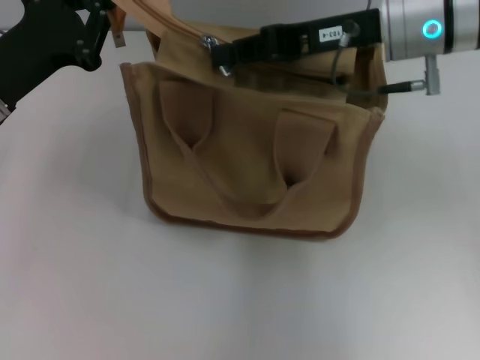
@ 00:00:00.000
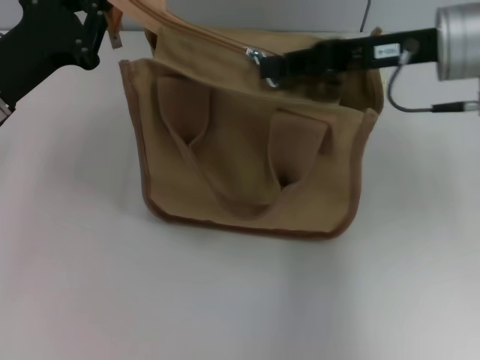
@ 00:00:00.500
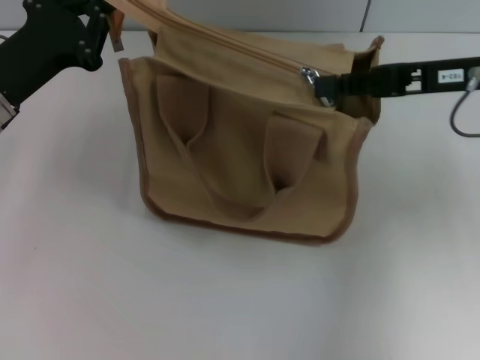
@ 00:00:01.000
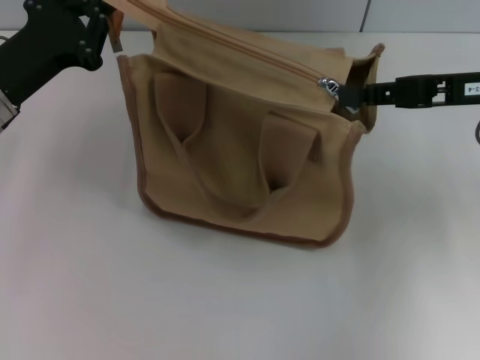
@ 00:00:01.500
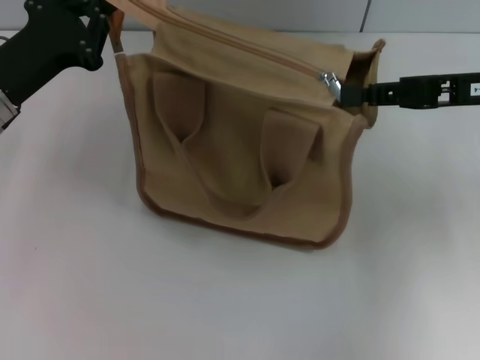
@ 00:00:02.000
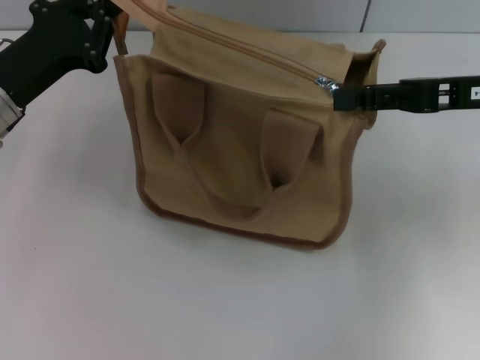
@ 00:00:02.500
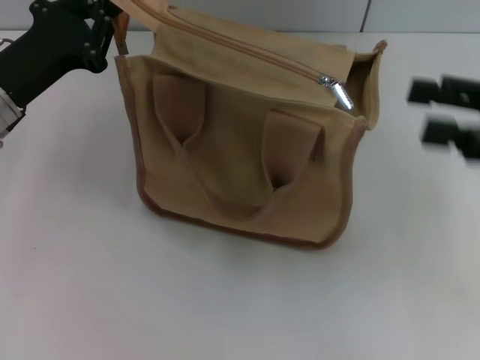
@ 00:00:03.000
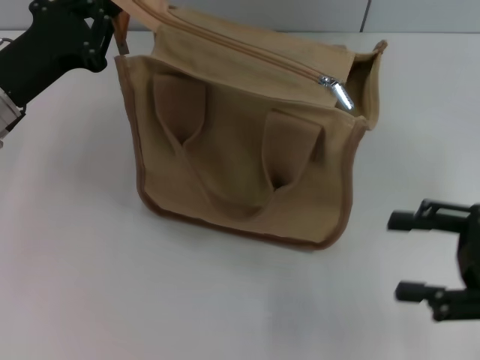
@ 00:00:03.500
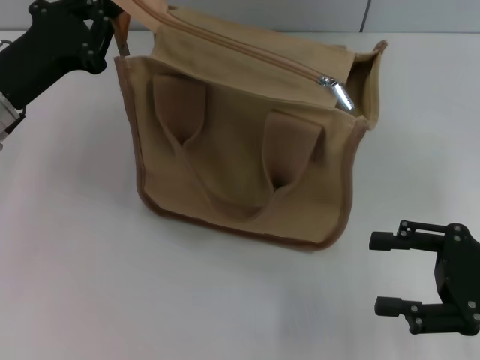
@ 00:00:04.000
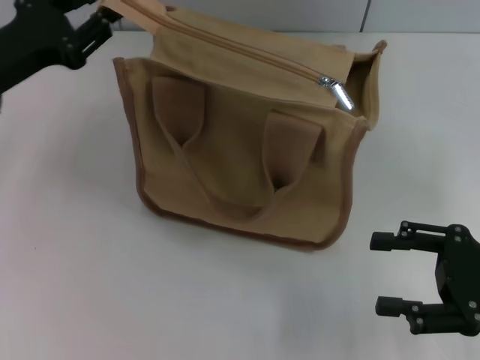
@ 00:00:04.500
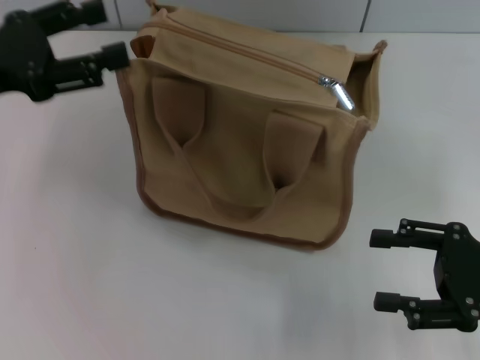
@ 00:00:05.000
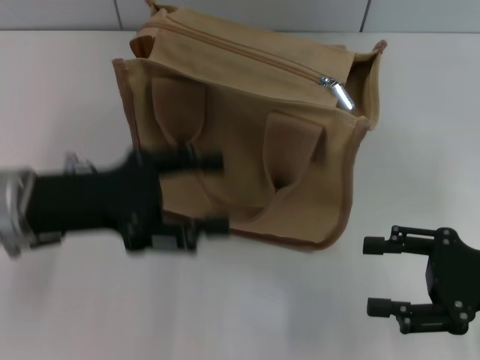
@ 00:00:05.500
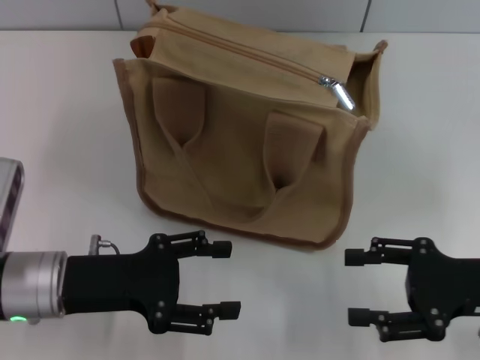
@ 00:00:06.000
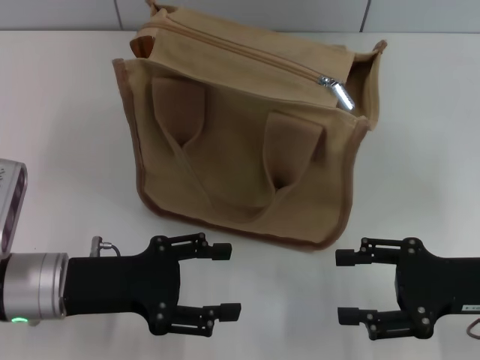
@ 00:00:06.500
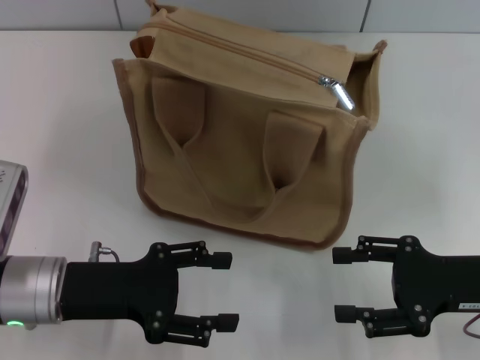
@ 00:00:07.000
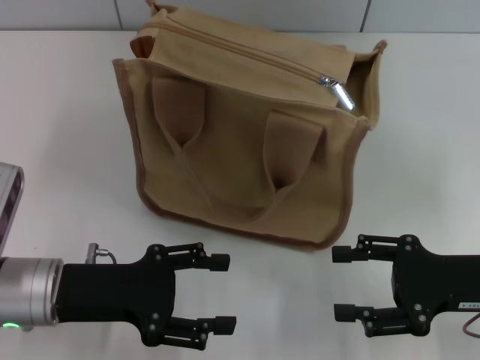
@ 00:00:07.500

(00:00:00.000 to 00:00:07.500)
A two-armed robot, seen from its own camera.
Step, 00:00:00.000 - 00:00:02.500: Pull up the zipper with your right hand.
Step, 00:00:03.500 - 00:00:05.000: Grab the zipper with your left hand.
00:00:00.000 - 00:00:02.000: The right gripper travels to the right by approximately 10 cm.
00:00:02.000 - 00:00:04.000: The right gripper goes roughly 15 cm backward and downward, and opens its fingers.
00:00:04.000 - 00:00:05.500: The left gripper heads backward, covering some 5 cm, and opens up.
00:00:05.500 - 00:00:07.500: The left gripper heads downward, covering about 5 cm.

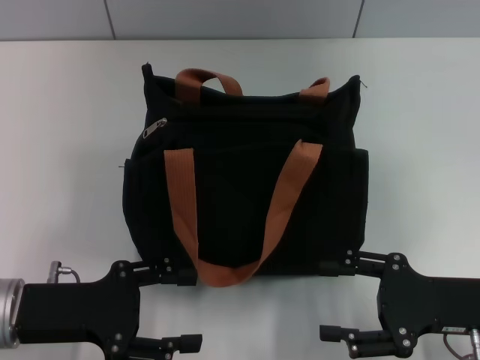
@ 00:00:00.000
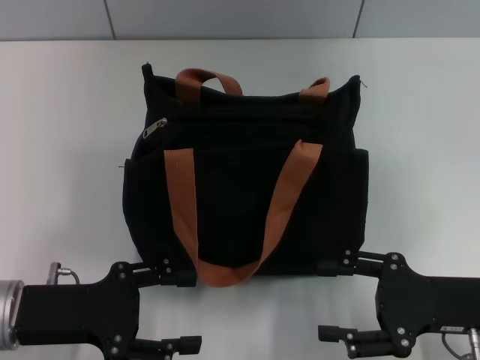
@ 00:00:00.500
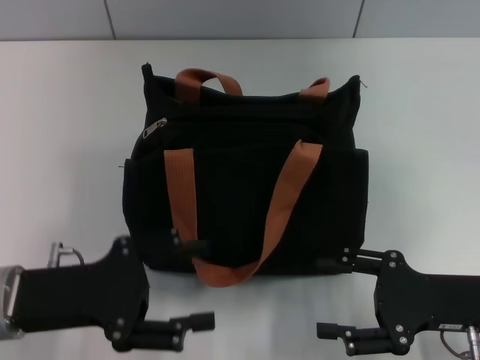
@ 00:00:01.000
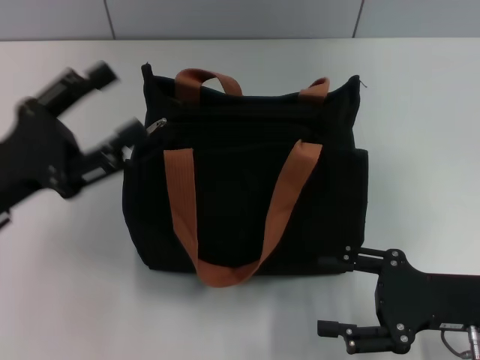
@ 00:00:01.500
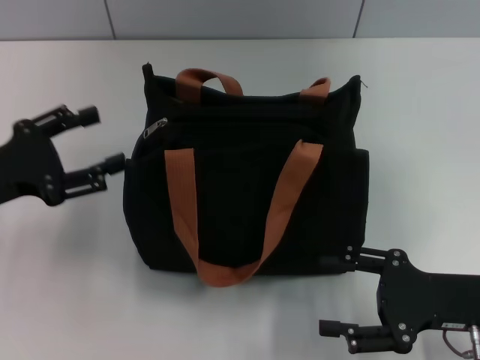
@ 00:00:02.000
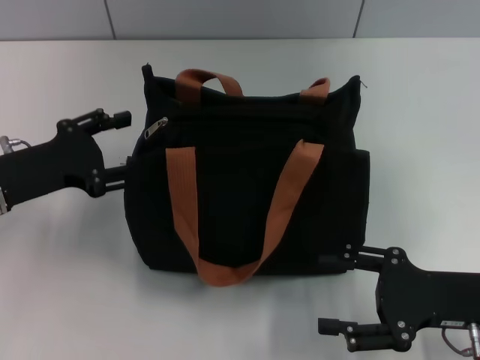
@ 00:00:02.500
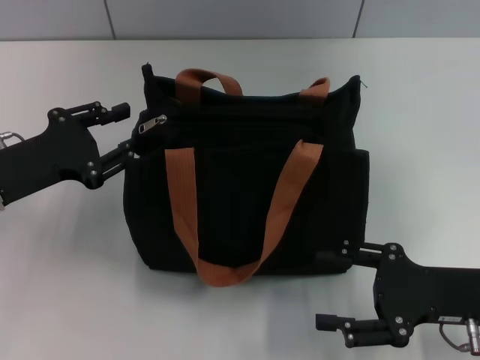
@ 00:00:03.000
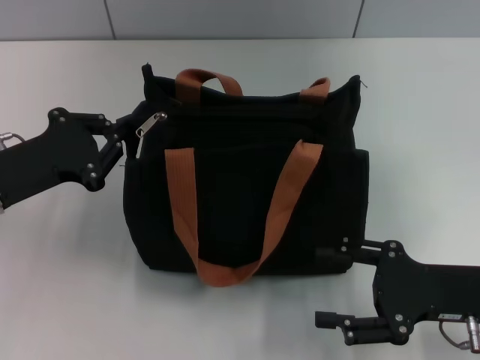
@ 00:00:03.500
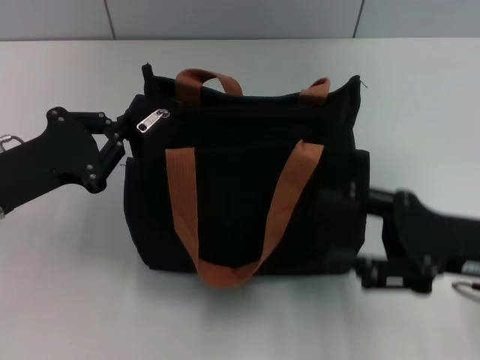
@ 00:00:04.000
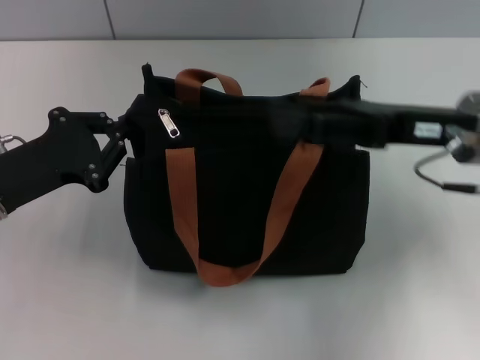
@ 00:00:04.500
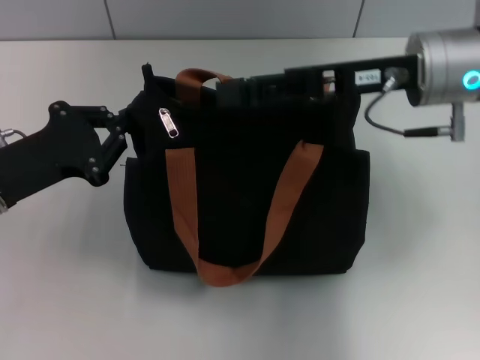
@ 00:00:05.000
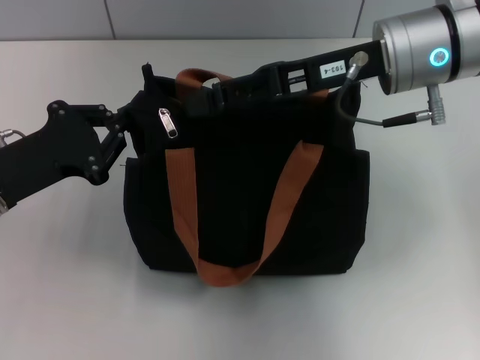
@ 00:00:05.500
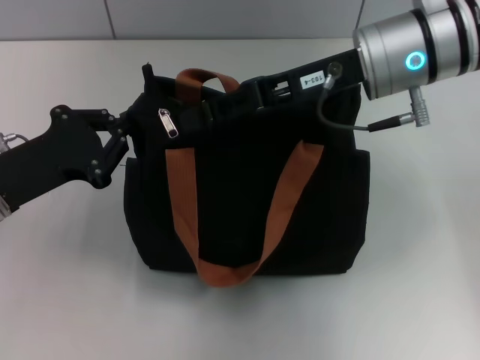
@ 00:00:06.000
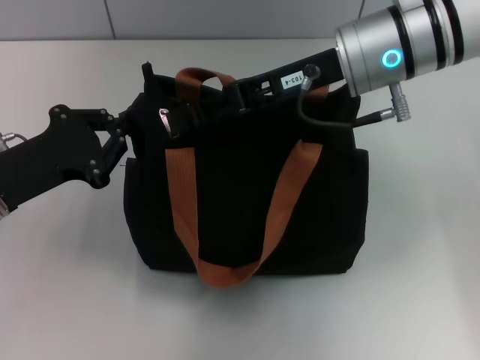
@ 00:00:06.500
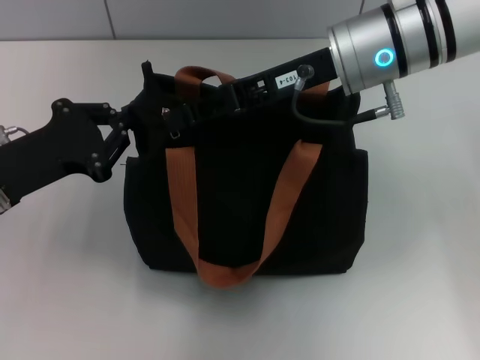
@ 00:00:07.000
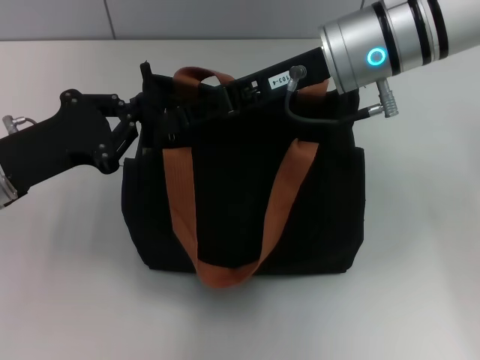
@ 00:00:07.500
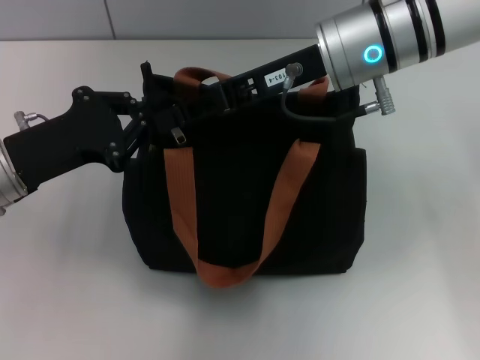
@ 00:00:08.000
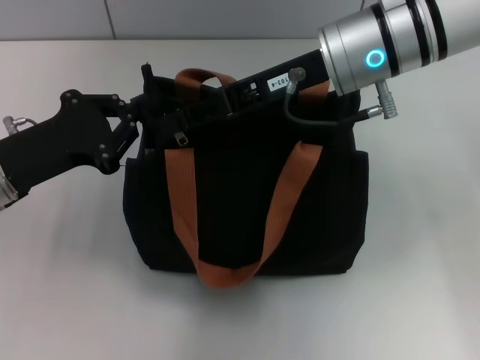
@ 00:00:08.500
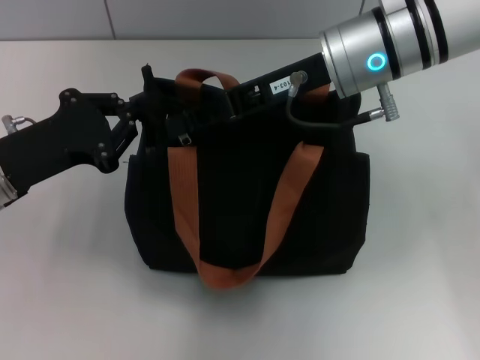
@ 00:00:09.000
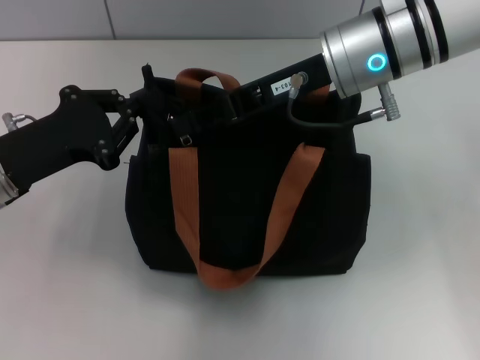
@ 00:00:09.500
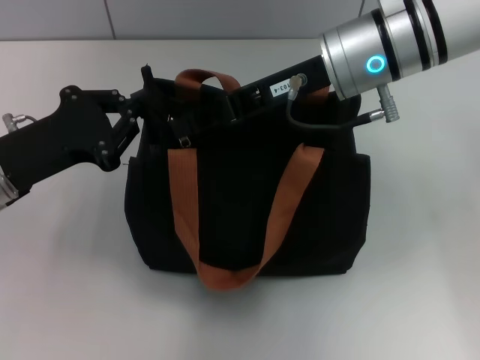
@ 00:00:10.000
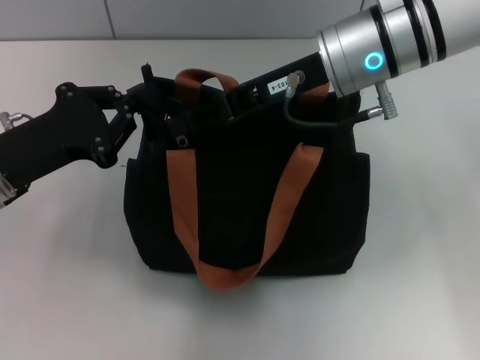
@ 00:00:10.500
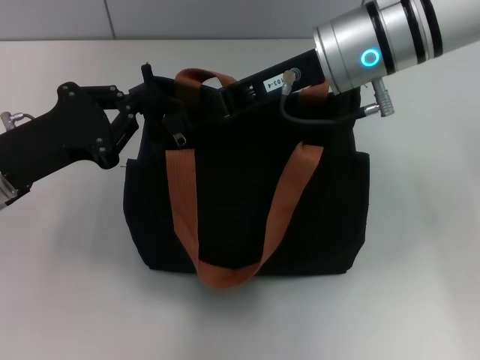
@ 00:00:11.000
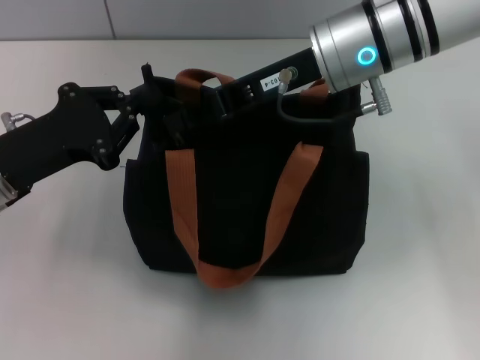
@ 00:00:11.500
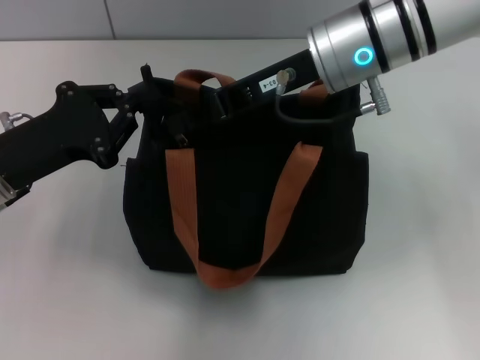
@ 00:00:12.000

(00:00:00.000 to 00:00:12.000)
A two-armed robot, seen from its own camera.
00:00:00.000 - 00:00:02.000: The left gripper shifts roughly 10 cm to the left and forward.
00:00:02.000 - 00:00:04.000: The left gripper closes up, while the right gripper ends up about 5 cm from where it was.
00:00:04.000 - 00:00:06.000: The right gripper goes about 20 cm forward, to the left and upward, and closes its fingers.
00:00:06.000 - 00:00:08.000: The grippers make only small movements.
00:00:08.000 - 00:00:10.000: Neither gripper changes place.
00:00:10.000 - 00:00:12.000: Neither gripper changes place.

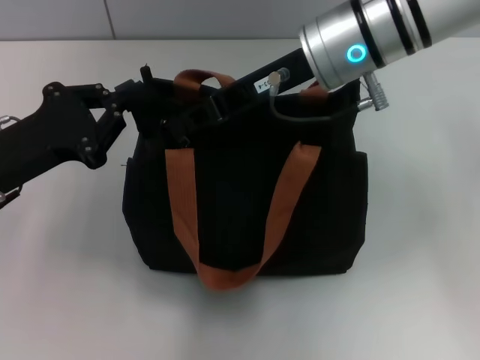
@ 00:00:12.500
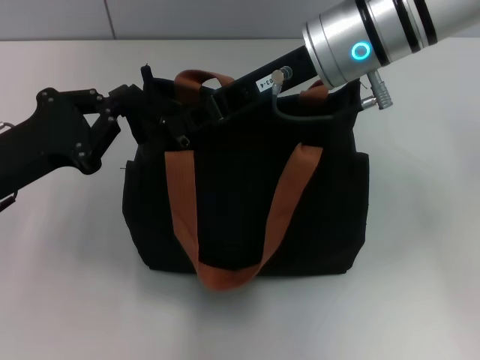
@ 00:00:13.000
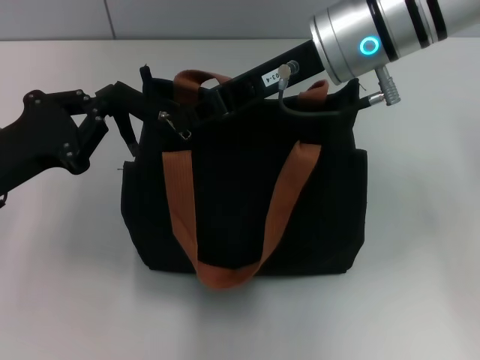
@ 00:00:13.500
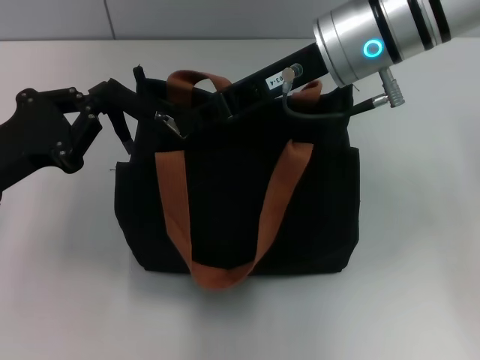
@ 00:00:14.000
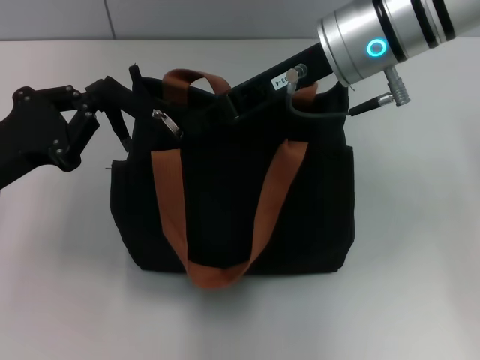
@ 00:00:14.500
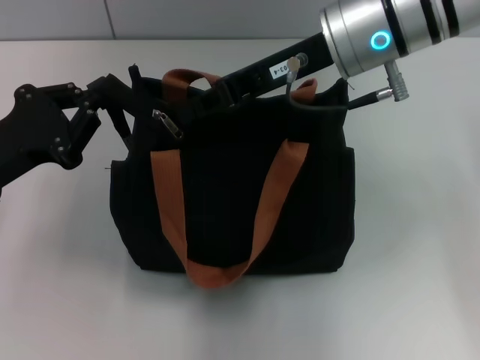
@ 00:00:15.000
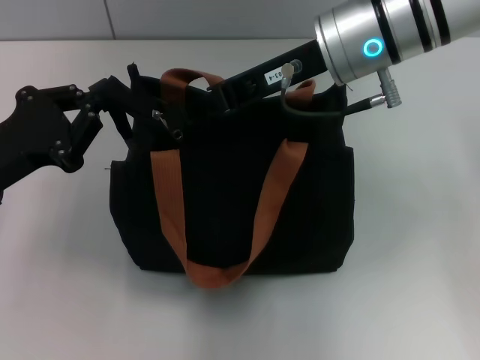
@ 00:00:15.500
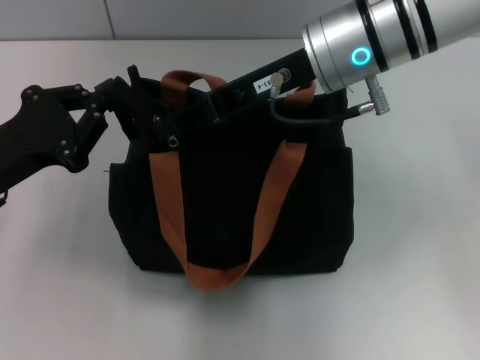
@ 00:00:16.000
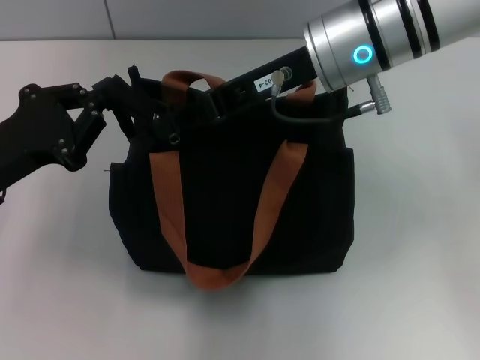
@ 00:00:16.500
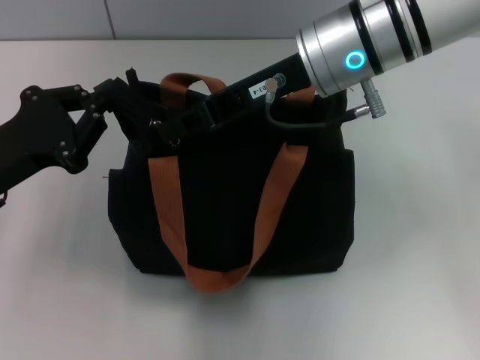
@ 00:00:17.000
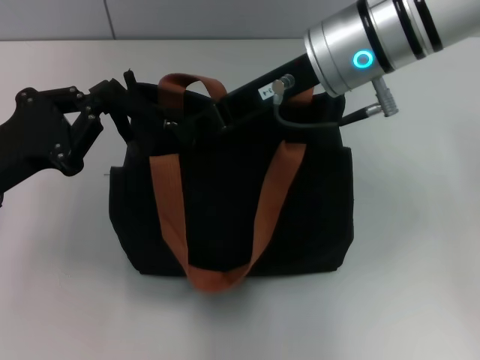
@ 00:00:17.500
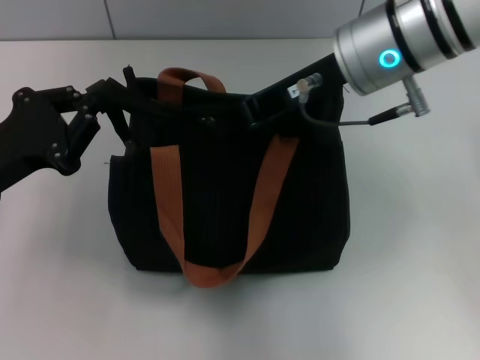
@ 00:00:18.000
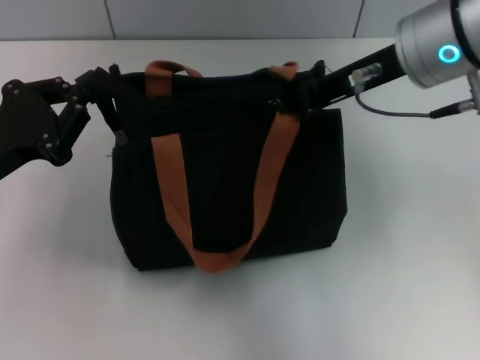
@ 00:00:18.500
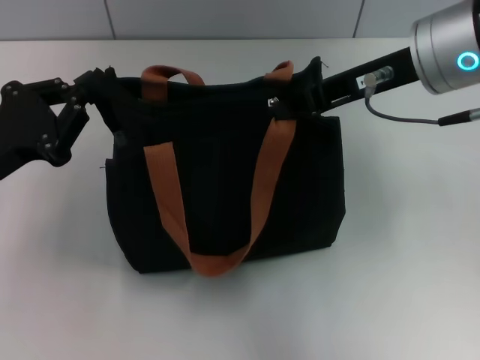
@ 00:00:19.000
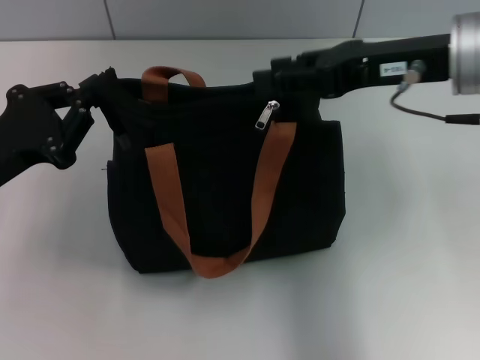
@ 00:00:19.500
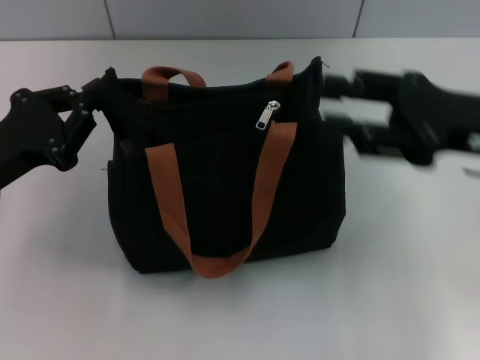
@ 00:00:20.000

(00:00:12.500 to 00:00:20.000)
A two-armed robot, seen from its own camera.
Step, 00:00:12.500 - 00:00:19.000: Pull up the zipper with your right hand.
00:00:12.500 - 00:00:18.000: The grippers stay close to where they were, moving slightly.
00:00:18.000 - 00:00:20.000: The right gripper travels to the right, backward and downward by approximately 15 cm, and opens its fingers.
